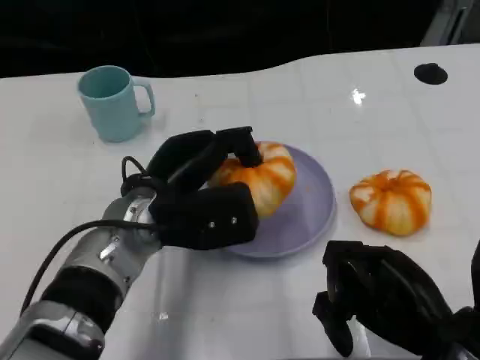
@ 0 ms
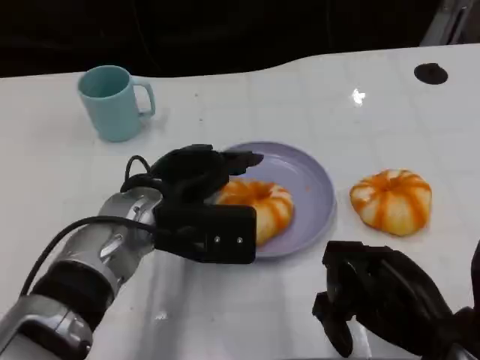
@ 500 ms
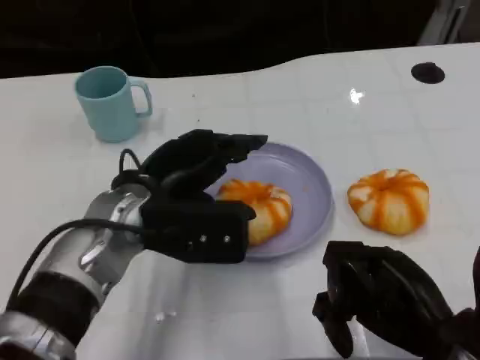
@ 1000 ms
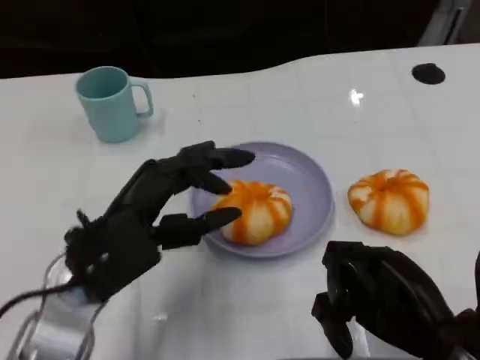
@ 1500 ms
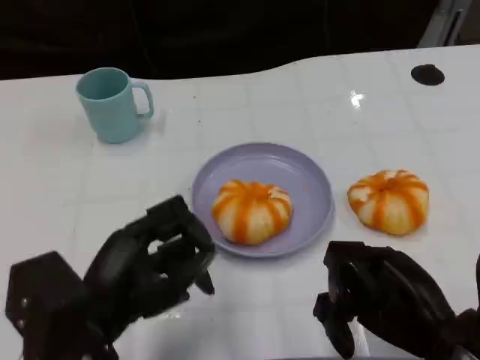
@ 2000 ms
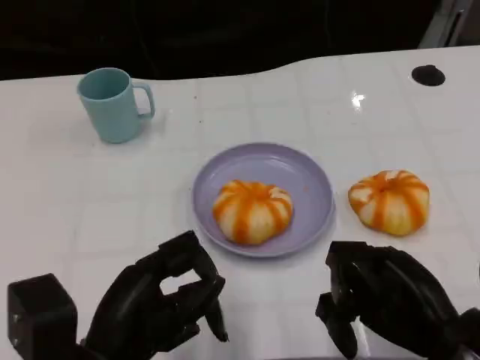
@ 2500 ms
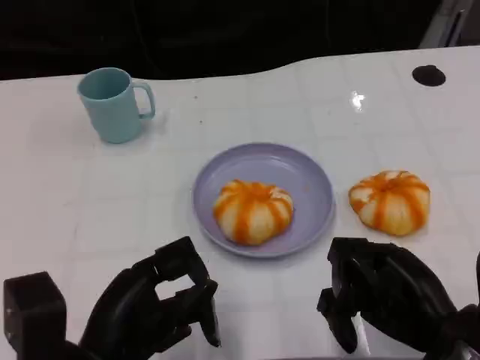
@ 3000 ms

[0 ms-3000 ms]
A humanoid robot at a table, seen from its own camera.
Task of the whole recording: Grasp the bread from the table and place it into the plate.
0 ms to 1500 ms: The left hand heads backward and to the left, covering about 10 cm.
1500 ms to 3000 ms: The left hand shifts approximately 5 cm backward.
